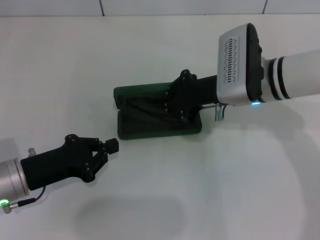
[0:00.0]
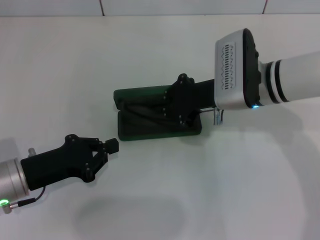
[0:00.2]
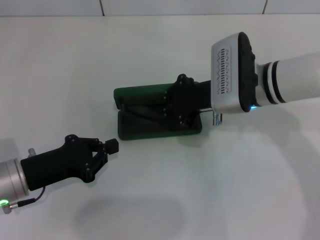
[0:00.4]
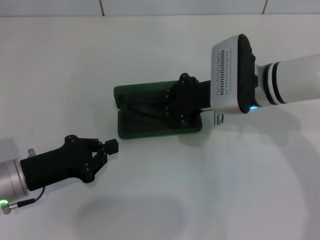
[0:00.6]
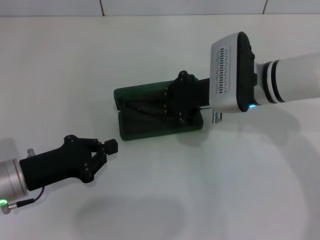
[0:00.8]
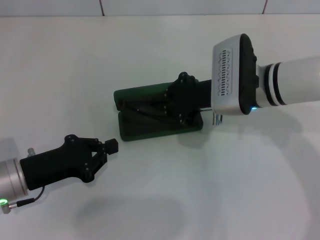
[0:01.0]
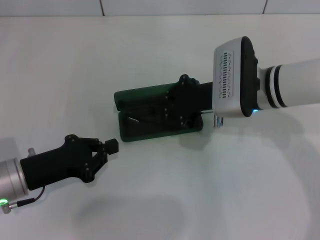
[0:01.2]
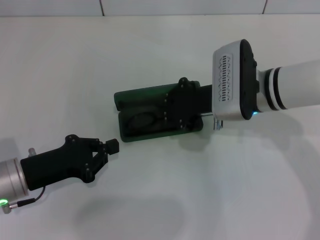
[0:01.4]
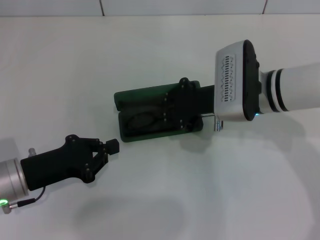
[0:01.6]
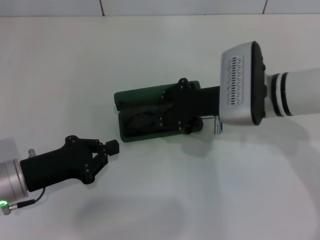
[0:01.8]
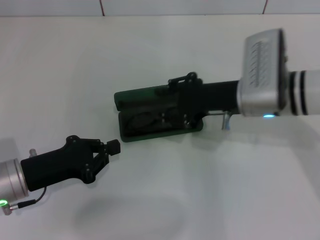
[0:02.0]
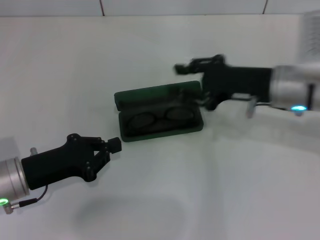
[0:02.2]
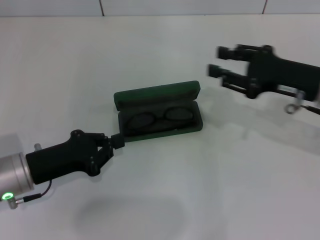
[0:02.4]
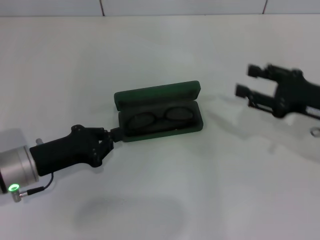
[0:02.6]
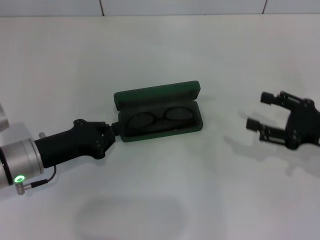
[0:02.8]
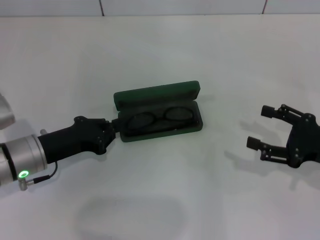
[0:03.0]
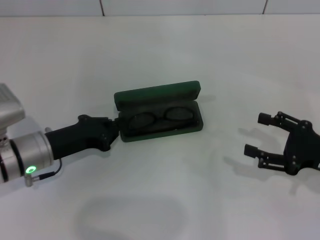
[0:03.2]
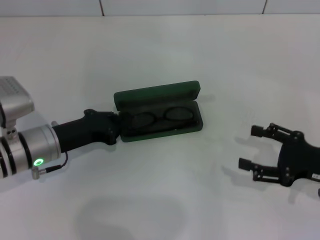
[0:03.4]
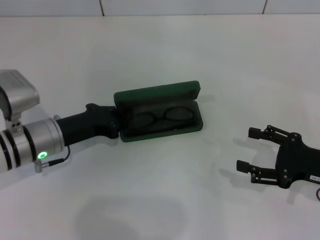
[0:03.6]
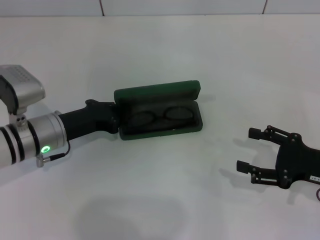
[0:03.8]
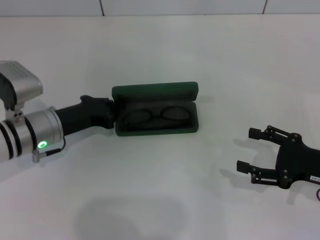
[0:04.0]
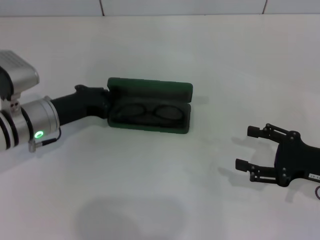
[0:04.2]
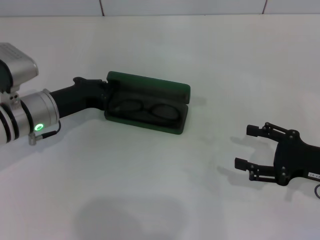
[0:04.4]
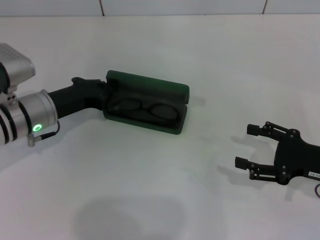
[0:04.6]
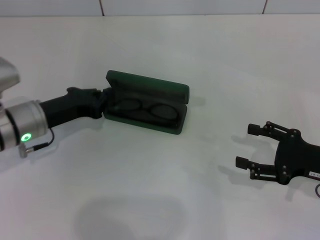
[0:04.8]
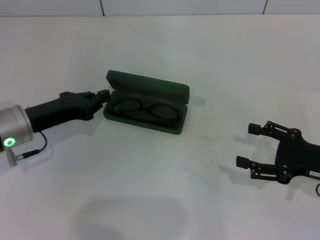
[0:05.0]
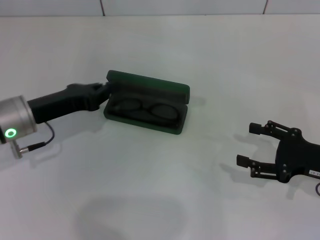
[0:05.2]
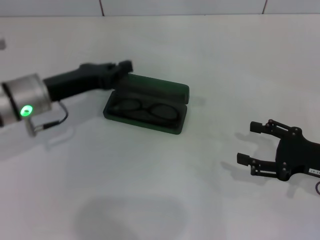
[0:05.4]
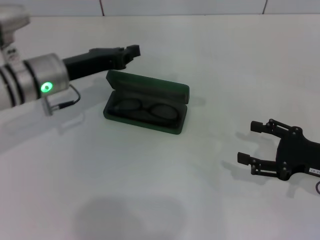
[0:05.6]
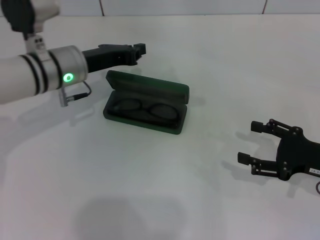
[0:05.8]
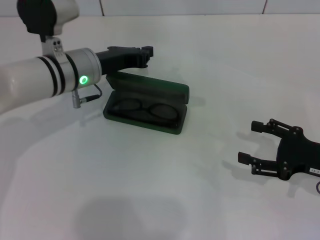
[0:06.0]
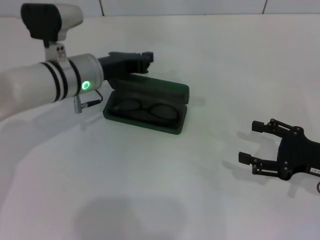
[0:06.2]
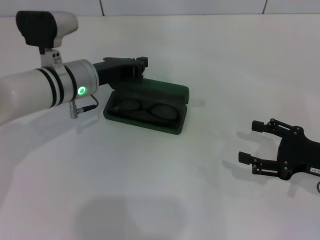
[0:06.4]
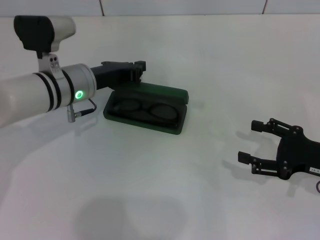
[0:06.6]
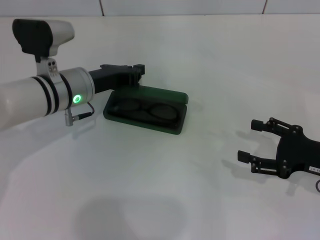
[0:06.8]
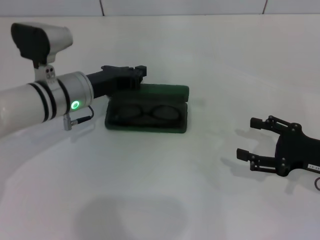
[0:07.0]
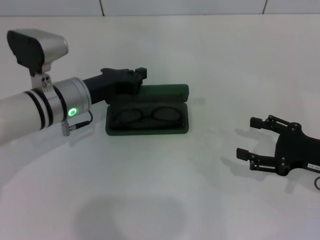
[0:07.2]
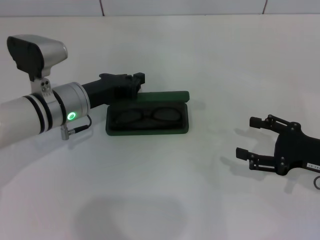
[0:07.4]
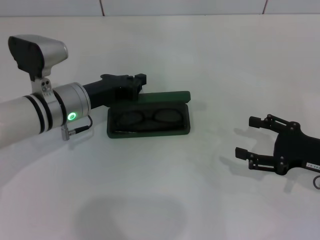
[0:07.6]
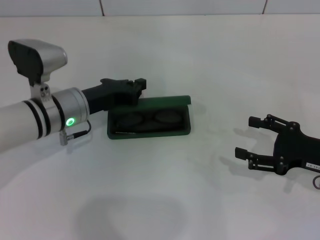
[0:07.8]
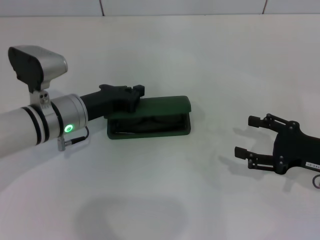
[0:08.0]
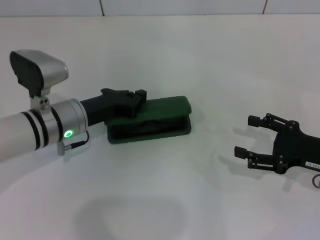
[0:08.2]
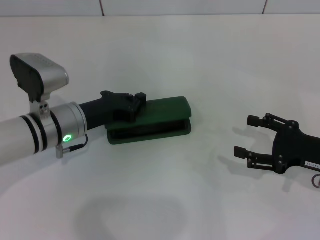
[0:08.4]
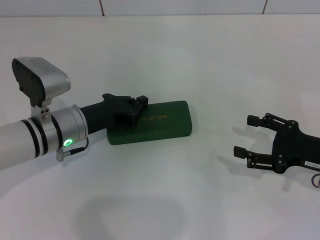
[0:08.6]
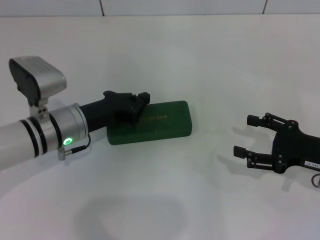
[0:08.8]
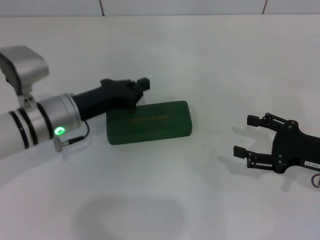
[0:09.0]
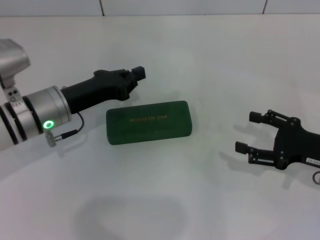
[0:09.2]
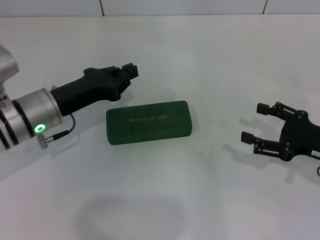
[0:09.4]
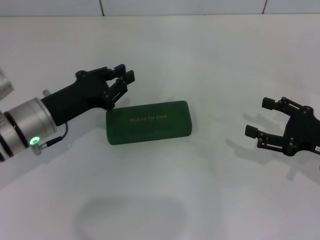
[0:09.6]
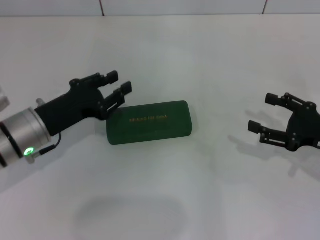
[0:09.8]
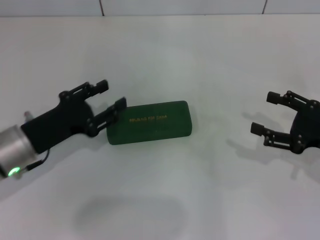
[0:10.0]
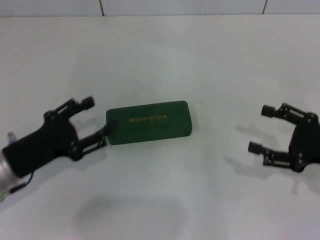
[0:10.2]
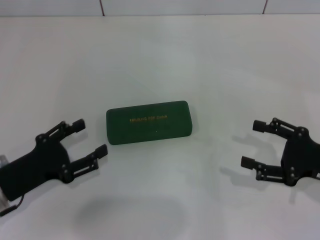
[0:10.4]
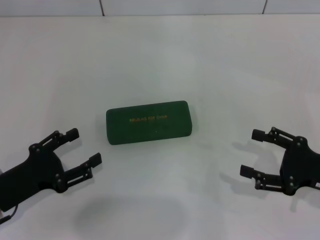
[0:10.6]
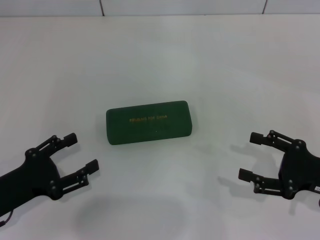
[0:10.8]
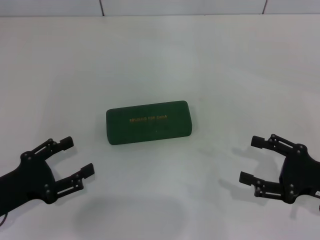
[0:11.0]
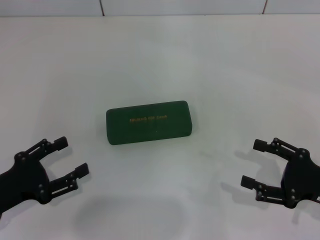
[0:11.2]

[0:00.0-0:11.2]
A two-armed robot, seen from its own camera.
Step, 0:02.0 to 0:08.4: Close the glasses case with your left hand.
0:00.0 to 0:01.6: The grippers move only a little.
0:01.6 to 0:03.2: The left gripper moves approximately 5 cm; the right gripper is displaced to the right and backward by some 20 cm, and opens its fingers.
0:03.2 to 0:04.8: The grippers stay close to where they were, moving slightly.
0:04.8 to 0:06.4: The left gripper heads to the right and forward, covering roughly 10 cm.
0:06.4 to 0:08.0: The left gripper ends up roughly 5 cm from where it was.
0:08.0 to 0:09.6: The left gripper ends up approximately 5 cm from where it was.
0:09.6 to 0:11.2: The left gripper shifts about 15 cm backward and to the left, and opens its fingers; the right gripper shifts roughly 5 cm backward.

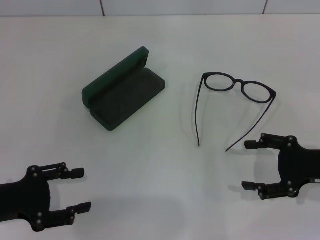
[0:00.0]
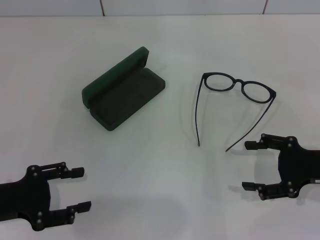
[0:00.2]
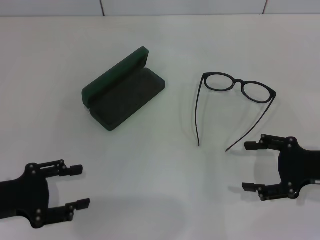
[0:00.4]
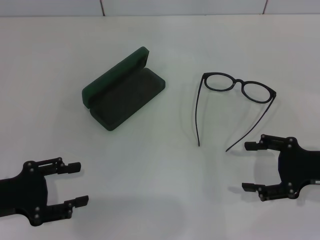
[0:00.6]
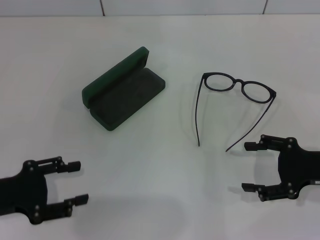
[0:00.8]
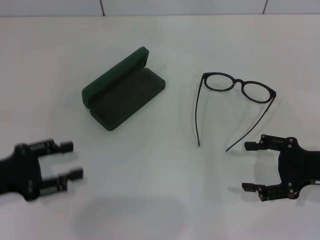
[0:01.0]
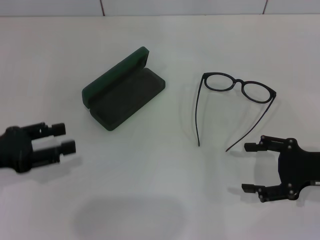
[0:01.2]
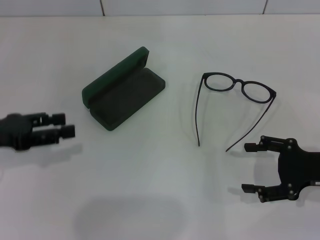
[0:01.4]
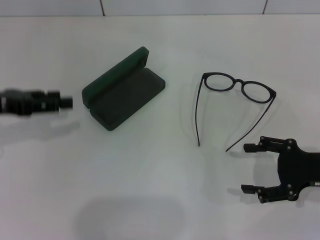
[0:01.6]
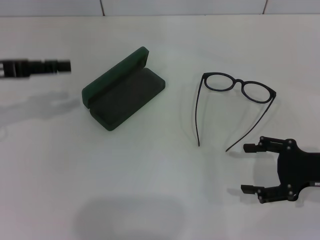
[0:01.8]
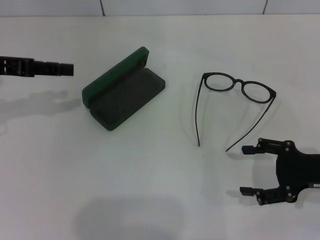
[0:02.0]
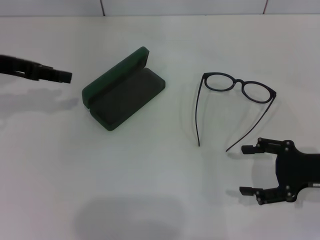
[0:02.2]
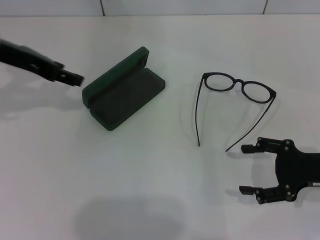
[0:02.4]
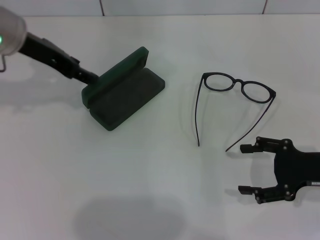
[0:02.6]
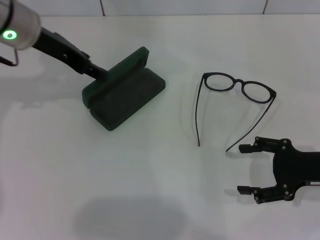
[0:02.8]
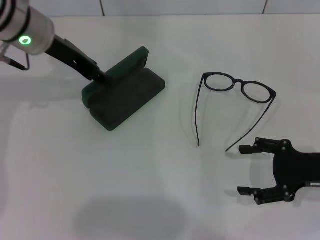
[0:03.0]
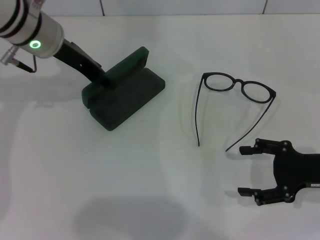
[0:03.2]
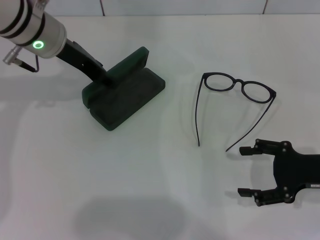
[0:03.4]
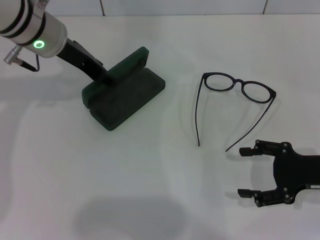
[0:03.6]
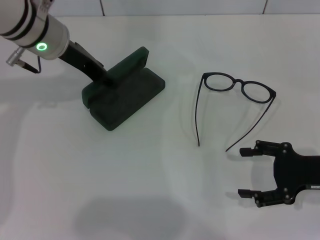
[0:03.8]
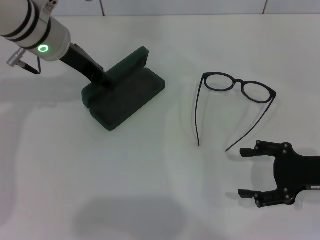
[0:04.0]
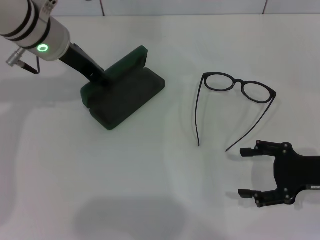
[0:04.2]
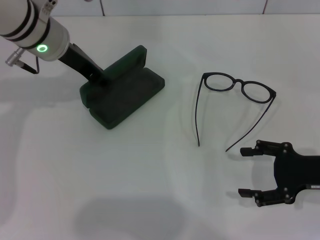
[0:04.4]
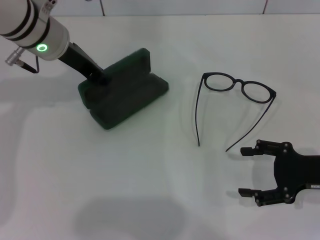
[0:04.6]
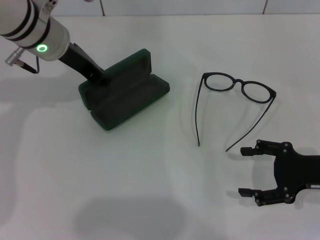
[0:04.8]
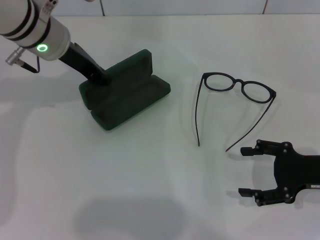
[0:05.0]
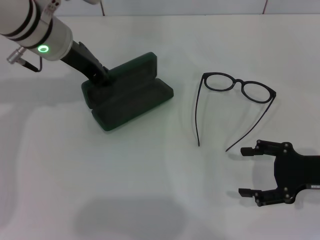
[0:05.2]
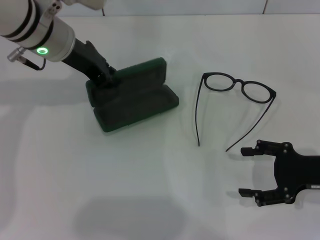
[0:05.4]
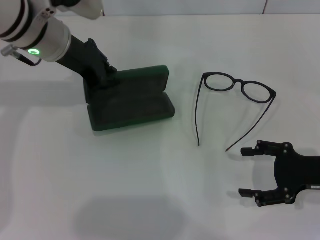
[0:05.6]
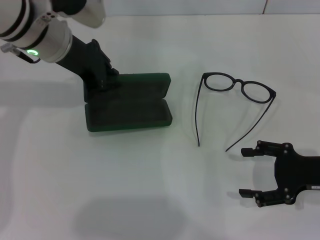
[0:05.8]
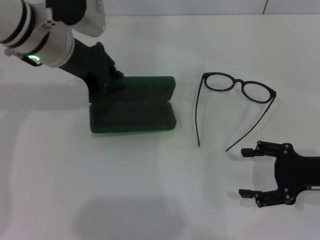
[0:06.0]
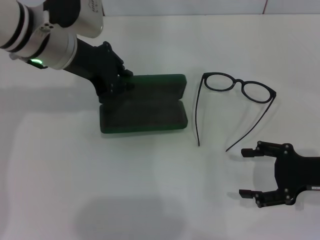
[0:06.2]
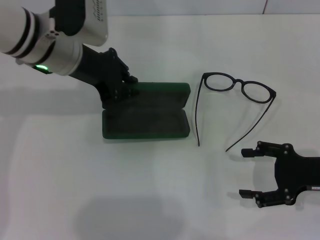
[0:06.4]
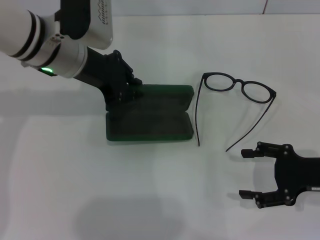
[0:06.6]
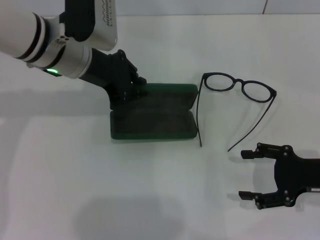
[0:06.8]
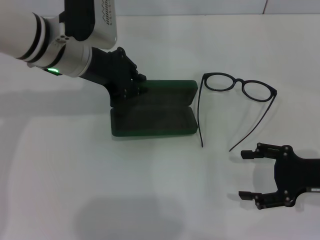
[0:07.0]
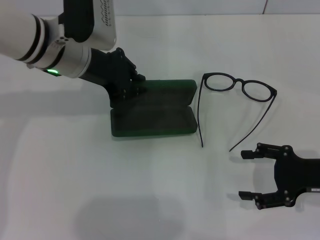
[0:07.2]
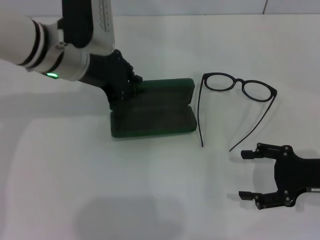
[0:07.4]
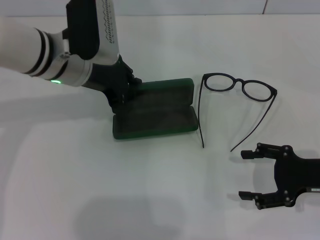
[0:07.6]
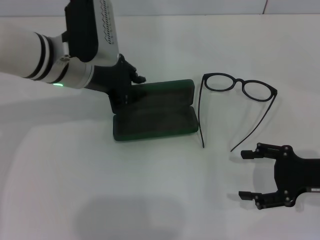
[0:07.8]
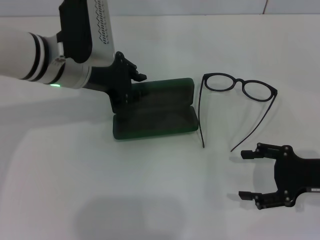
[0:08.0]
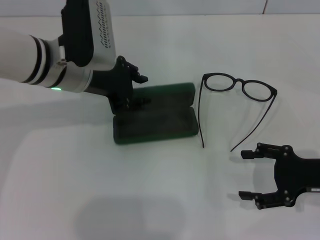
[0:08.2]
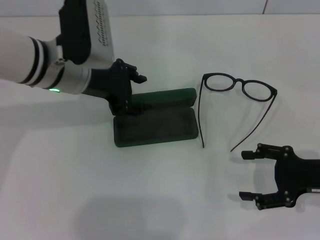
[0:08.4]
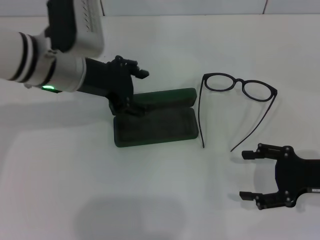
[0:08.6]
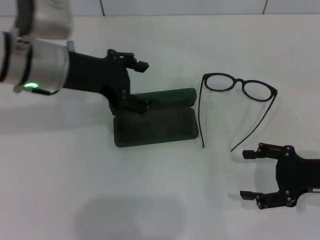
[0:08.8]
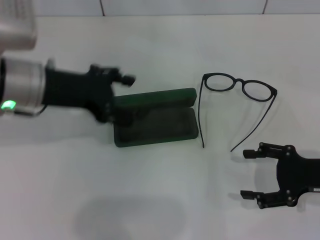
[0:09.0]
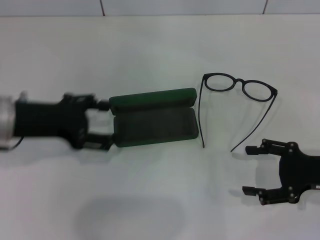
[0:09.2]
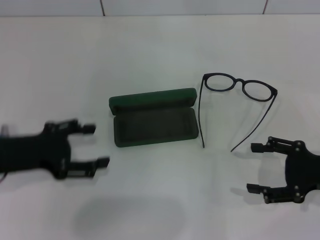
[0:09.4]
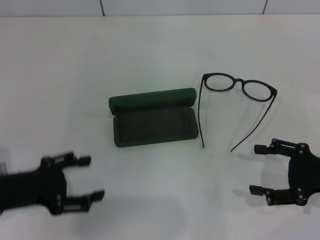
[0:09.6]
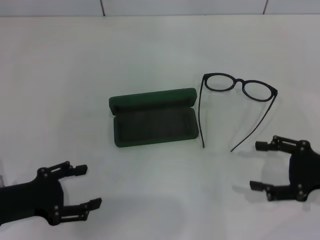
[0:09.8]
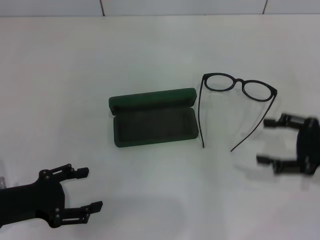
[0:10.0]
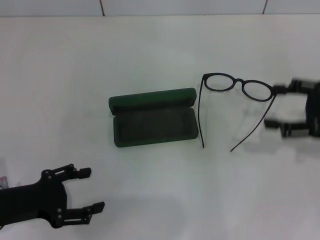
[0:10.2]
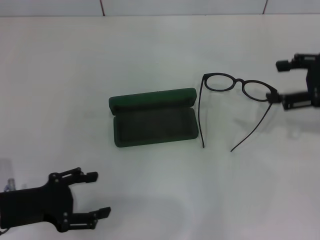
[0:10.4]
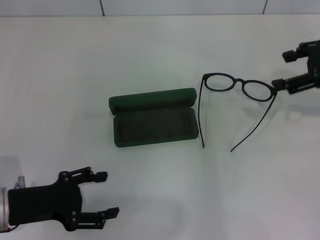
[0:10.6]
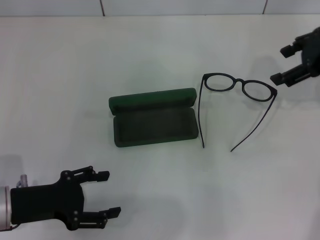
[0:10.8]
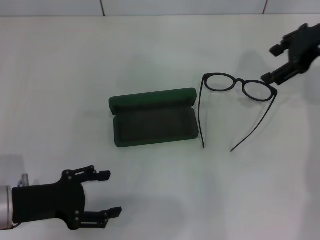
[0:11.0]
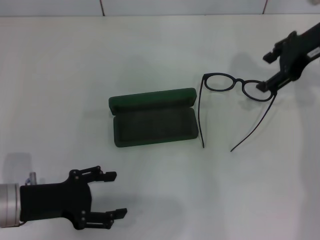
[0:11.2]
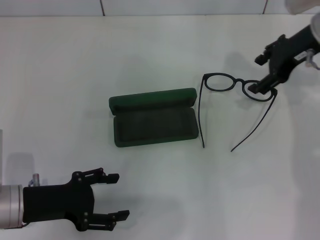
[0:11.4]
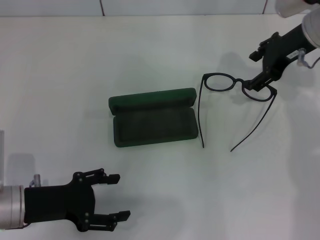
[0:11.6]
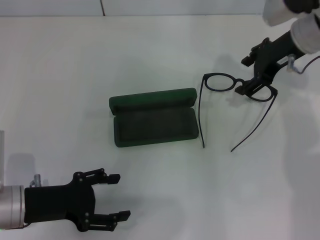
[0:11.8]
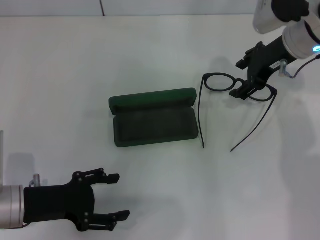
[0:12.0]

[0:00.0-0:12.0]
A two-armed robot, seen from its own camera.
Step, 0:00.0 to 0:04.4: Grab the glasses case with your left hand.
Step, 0:04.6 to 0:08.2: Place the glasses case in the center of the table with your left hand.
0:00.0 to 0:01.6: The left gripper is displaced forward and upward by roughly 15 cm.
0:01.6 to 0:03.0: The left gripper shifts roughly 15 cm to the right and forward.
0:03.0 to 0:04.4: The grippers make only small movements.
0:06.0 to 0:07.6: The grippers stay close to where they were, moving slightly.
0:07.6 to 0:09.0: The left gripper travels to the left and backward by roughly 10 cm, and opens up.
0:09.0 to 0:10.4: The right gripper shifts roughly 15 cm upward and forward. Meanwhile the left gripper moves backward, downward and to the left, roughly 20 cm.
0:10.4 to 0:12.0: The right gripper moves to the left and forward, some 15 cm.
